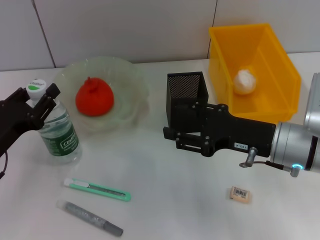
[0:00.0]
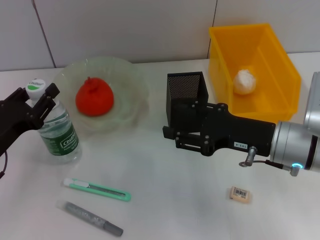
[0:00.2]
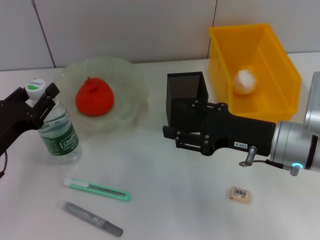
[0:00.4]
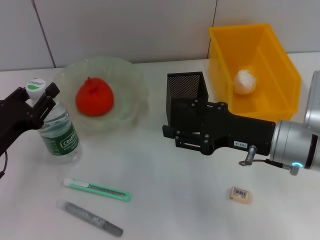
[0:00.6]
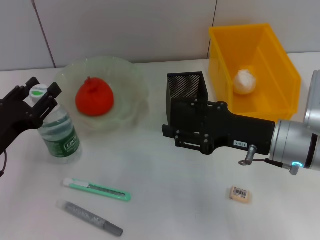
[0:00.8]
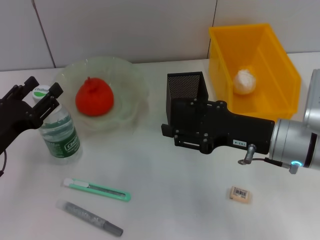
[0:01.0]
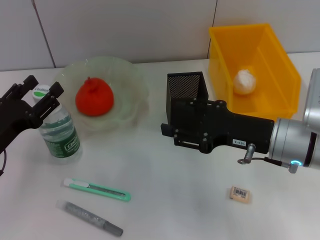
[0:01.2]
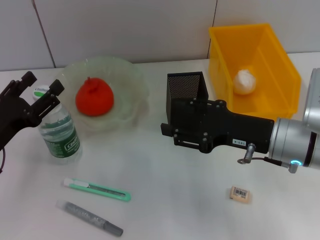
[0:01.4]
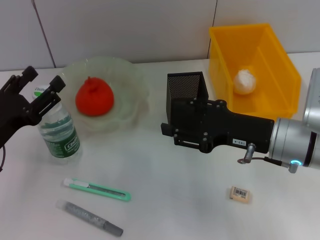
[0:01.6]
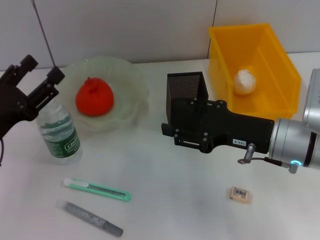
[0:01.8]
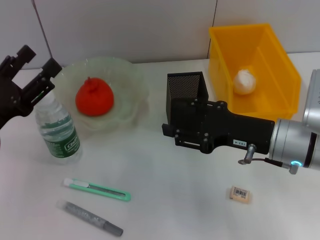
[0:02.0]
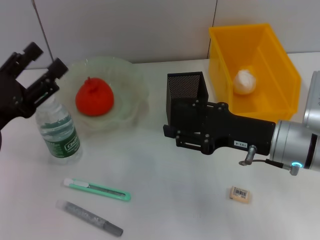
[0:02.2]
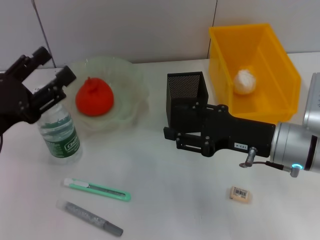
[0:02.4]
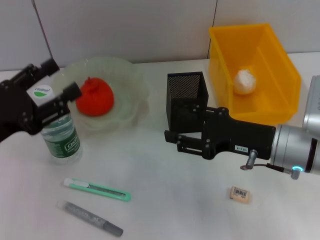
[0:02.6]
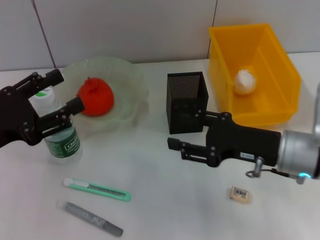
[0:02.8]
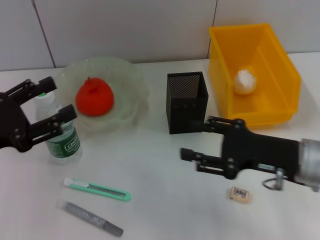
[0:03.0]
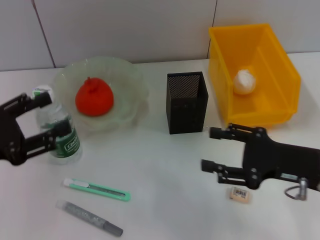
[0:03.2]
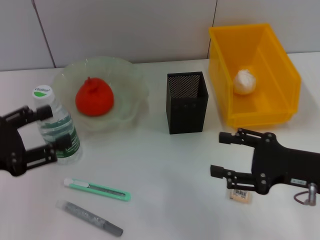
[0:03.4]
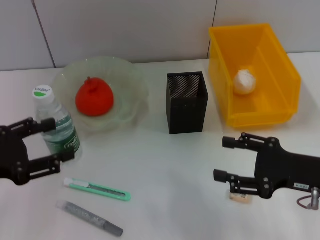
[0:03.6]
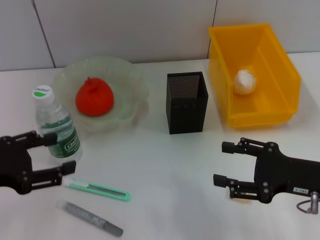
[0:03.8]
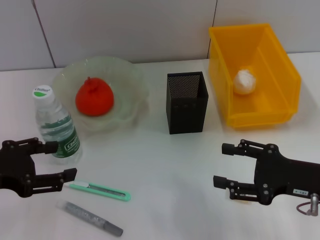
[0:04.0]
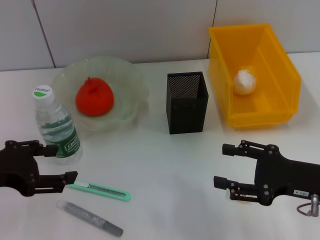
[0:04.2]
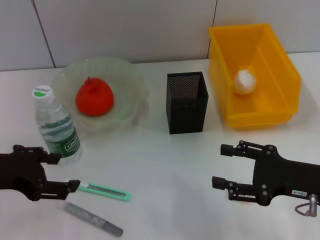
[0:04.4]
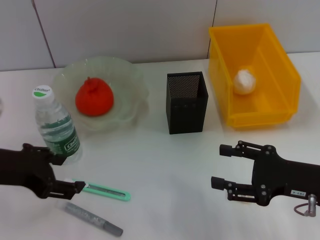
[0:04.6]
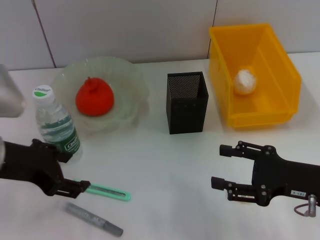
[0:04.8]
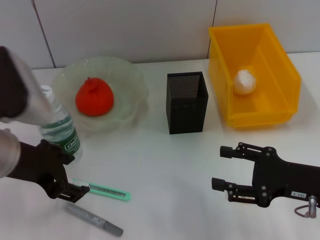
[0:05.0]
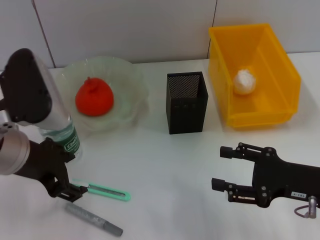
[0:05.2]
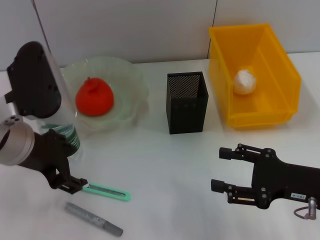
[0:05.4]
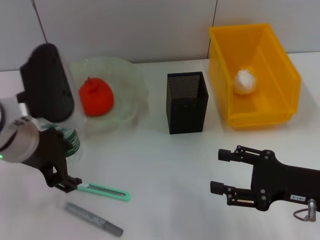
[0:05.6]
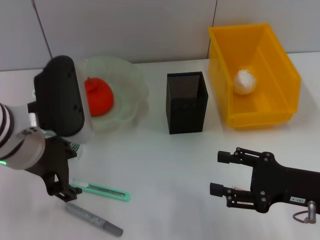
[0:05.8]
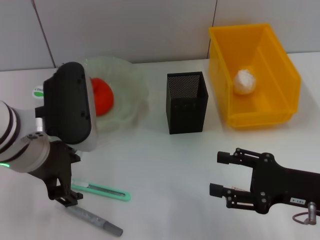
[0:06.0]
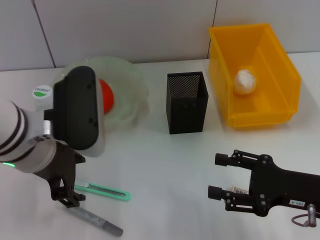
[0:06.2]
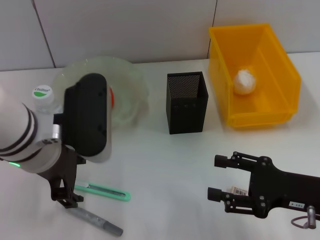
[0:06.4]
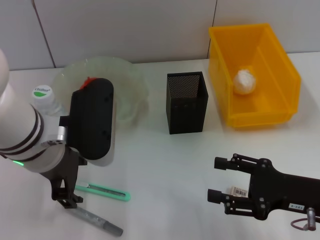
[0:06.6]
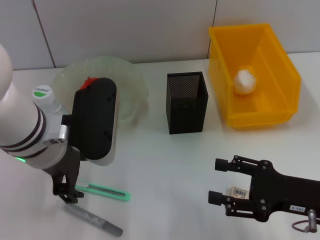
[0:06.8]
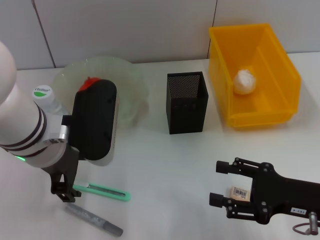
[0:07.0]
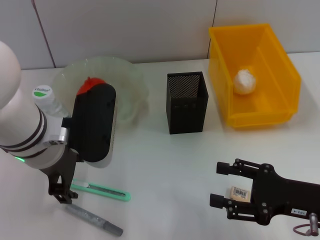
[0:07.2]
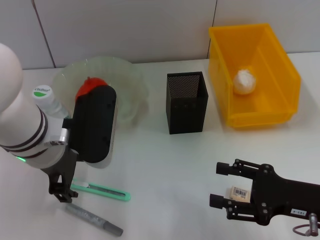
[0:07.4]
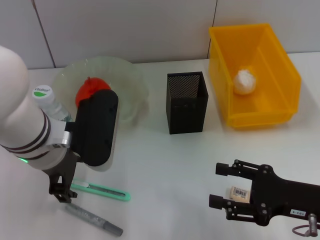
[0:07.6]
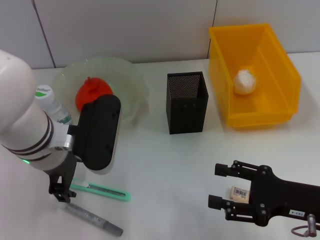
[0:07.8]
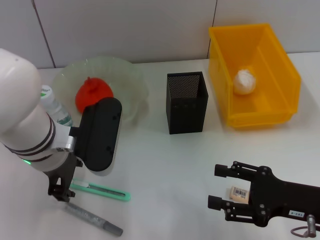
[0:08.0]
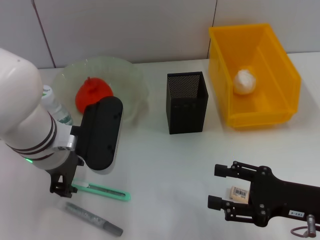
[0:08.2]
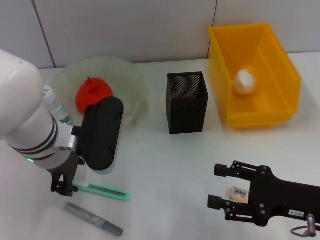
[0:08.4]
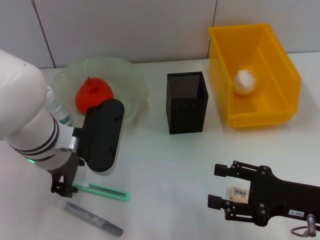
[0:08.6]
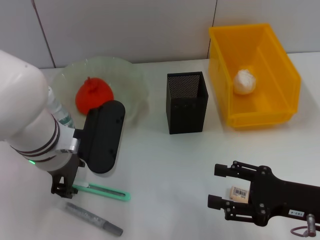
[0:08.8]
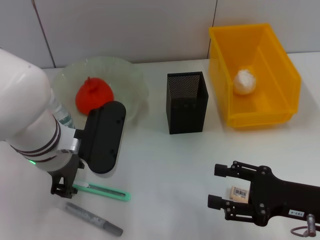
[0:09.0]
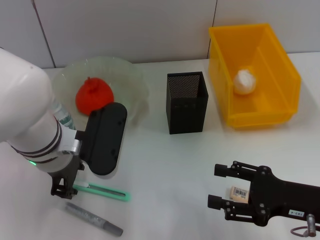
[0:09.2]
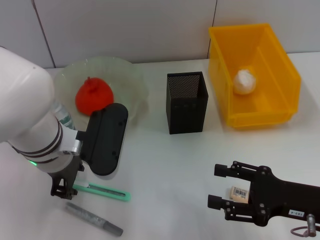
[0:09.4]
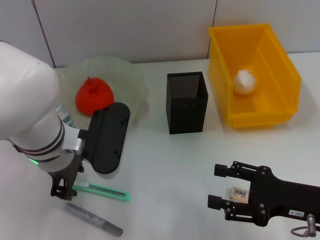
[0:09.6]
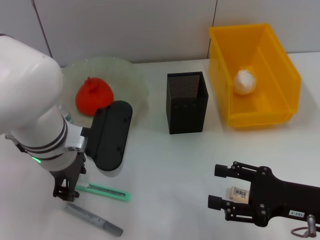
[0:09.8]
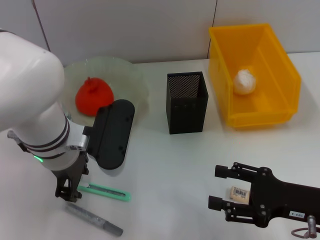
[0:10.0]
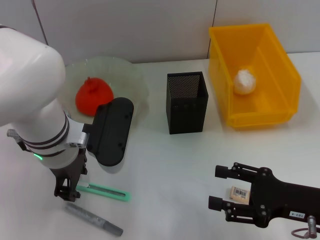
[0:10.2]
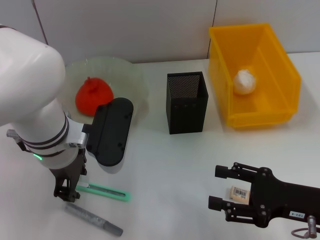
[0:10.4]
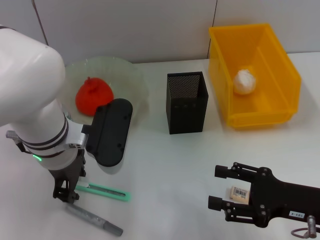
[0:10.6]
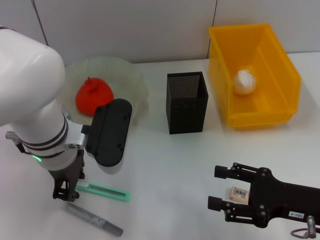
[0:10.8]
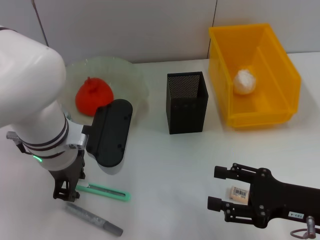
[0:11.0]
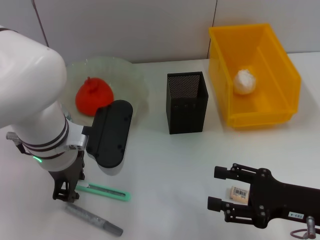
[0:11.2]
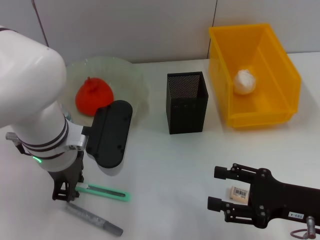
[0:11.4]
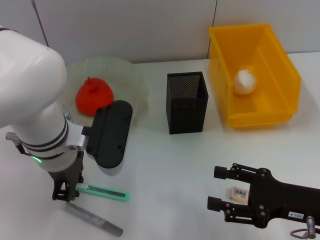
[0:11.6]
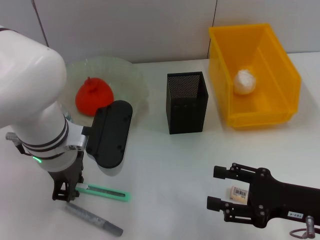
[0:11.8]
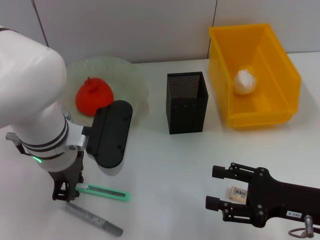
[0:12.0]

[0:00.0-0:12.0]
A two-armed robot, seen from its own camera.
0:00.0 to 0:01.6: The left gripper opens up.
0:01.6 to 0:03.0: The left gripper travels upward by roughly 5 cm.
0:03.0 to 0:04.4: The left gripper ends up roughly 5 cm from where it was. The right gripper ends up approximately 5 cm from where it was.
0:04.4 to 0:06.0: The left gripper travels to the right by about 10 cm.
0:06.0 to 0:07.6: The grippers move only a little.
0:07.6 to 0:09.0: The grippers move only a little.
0:09.0 to 0:10.4: Both grippers stay about where they are.
0:10.4 to 0:12.0: Both grippers stay put.

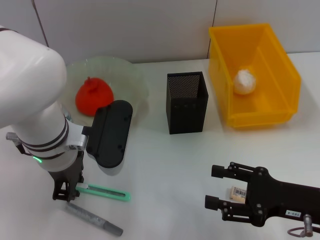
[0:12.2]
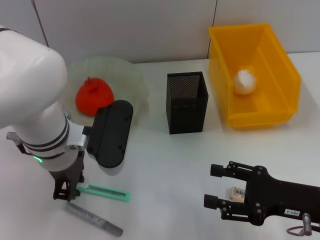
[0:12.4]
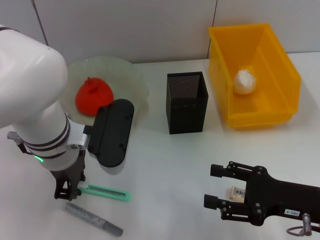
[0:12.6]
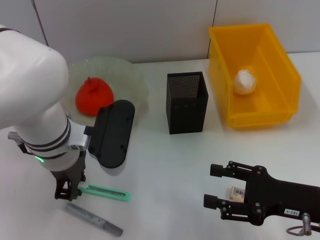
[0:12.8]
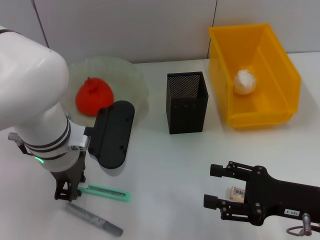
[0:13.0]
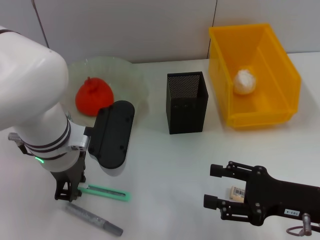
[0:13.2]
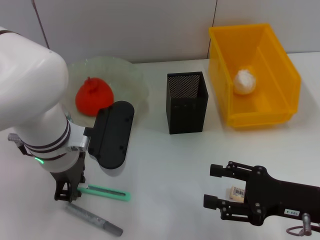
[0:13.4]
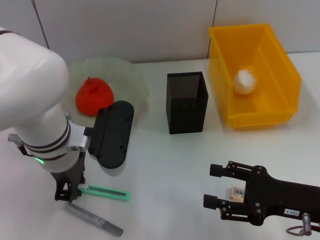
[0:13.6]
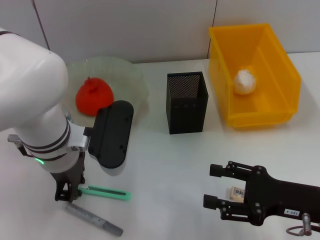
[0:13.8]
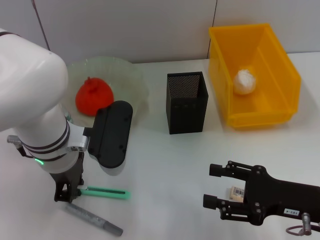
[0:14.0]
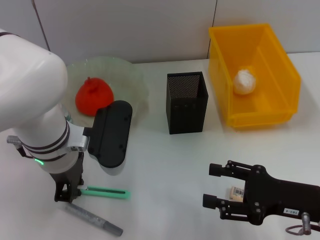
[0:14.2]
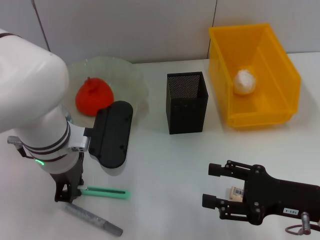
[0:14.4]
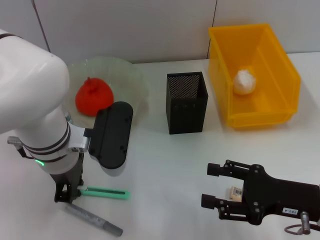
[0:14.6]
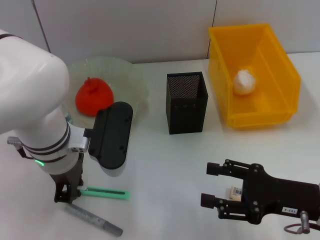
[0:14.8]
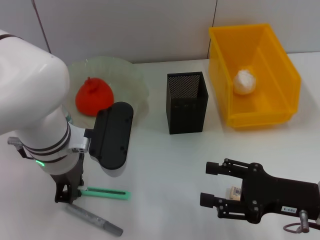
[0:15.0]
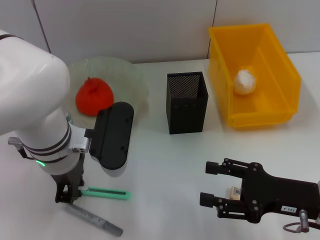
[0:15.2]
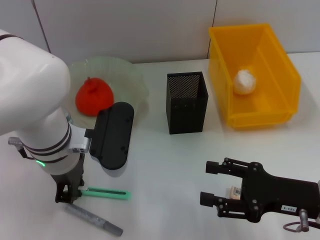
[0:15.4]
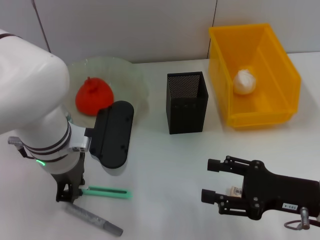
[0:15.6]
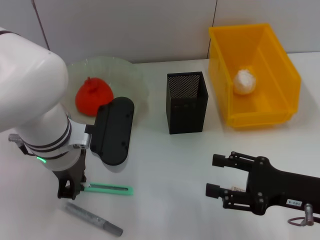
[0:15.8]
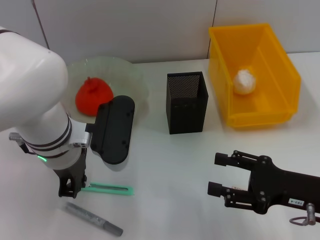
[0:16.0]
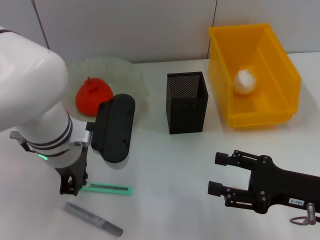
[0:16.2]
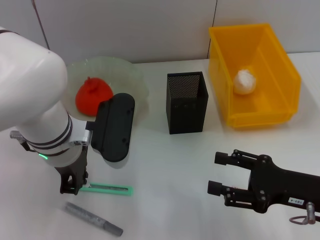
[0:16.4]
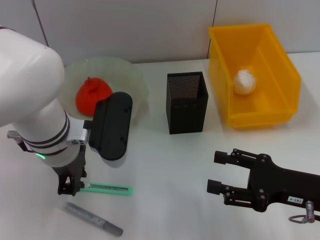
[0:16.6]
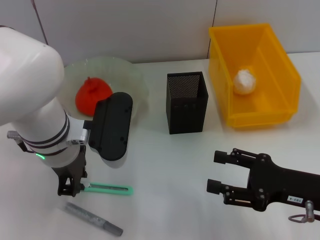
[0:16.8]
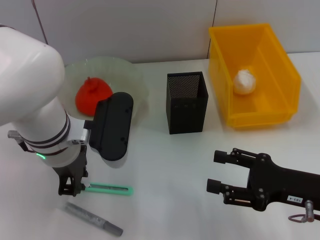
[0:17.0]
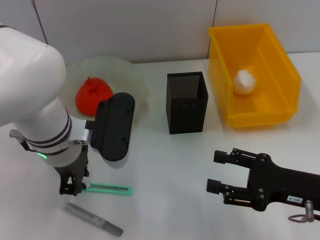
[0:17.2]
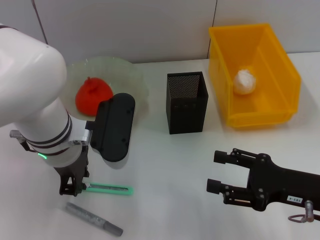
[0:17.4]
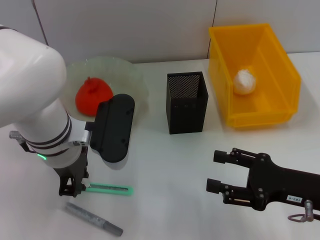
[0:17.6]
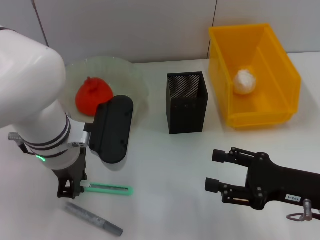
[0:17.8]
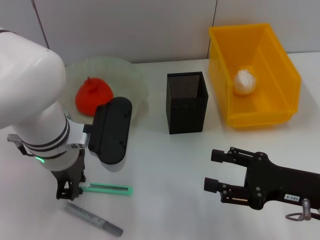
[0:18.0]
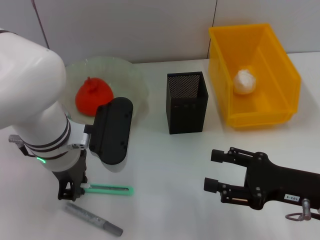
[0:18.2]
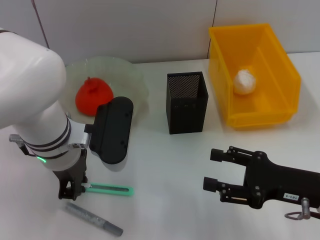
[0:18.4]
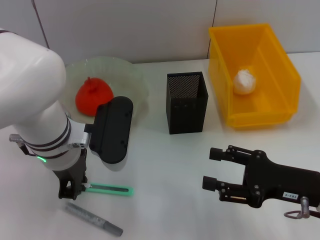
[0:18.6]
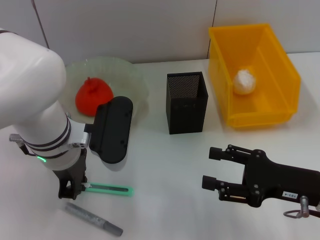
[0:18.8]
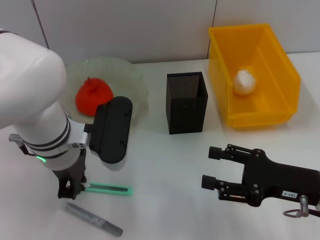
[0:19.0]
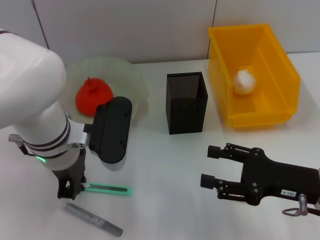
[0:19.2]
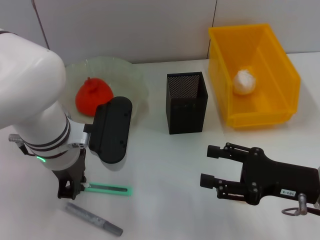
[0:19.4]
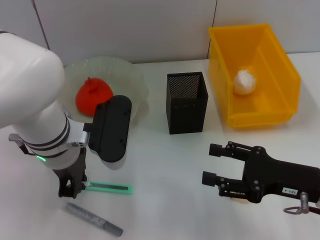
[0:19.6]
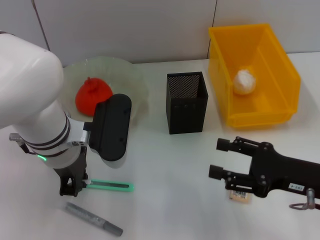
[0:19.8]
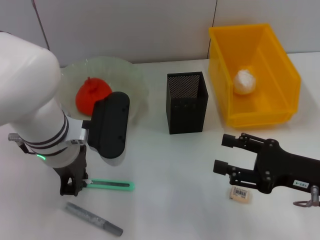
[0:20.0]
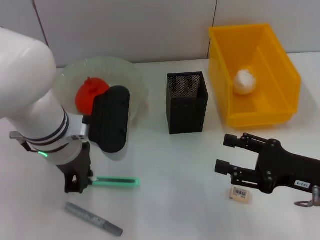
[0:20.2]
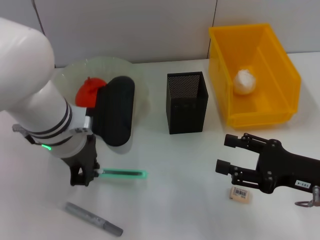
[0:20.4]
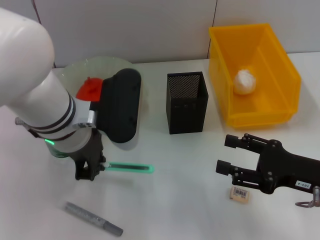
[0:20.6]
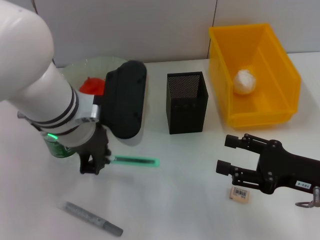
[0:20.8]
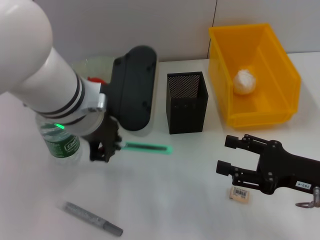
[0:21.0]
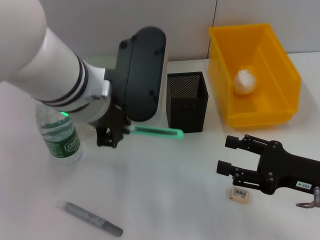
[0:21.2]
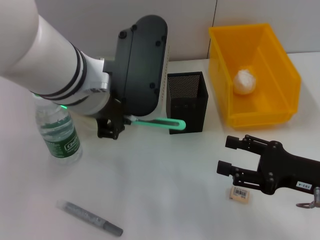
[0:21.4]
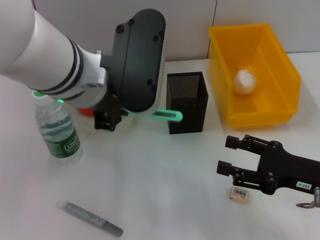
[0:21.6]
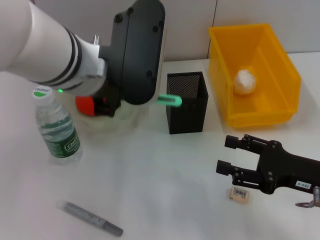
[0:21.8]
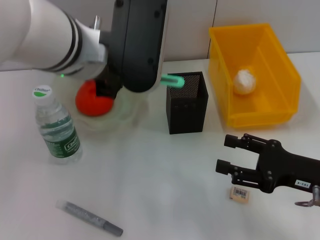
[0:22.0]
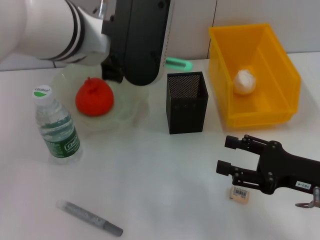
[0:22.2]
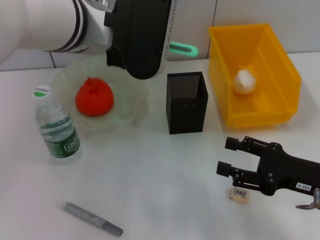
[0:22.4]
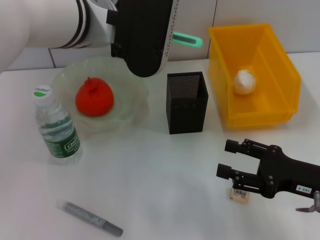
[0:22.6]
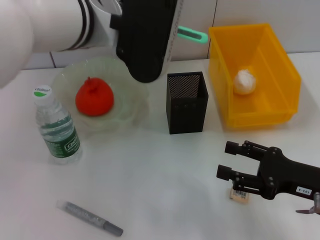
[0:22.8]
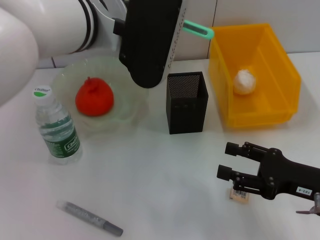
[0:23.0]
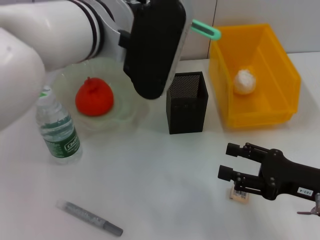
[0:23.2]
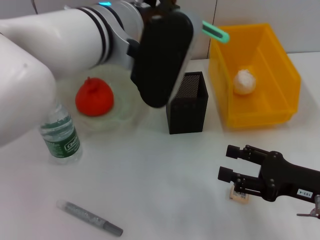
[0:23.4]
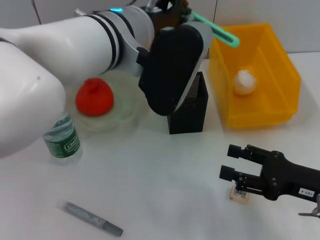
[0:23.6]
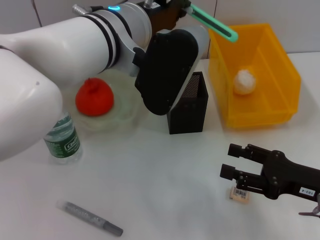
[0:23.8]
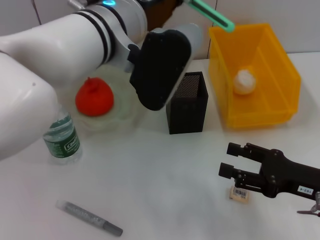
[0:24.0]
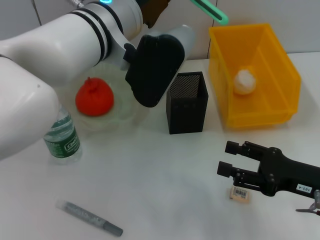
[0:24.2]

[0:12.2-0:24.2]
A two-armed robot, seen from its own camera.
Step, 0:12.2 to 0:19.8: Grab the blue utility knife with the left hand.
0:12.2 to 0:16.6: The two grippers keep their place.
0:16.6 to 0:19.8: Both grippers stay put.
0:19.8 to 0:21.2: The left gripper travels upward by about 10 cm.
0:21.2 to 0:22.6: The left gripper moves upward, about 5 cm.
